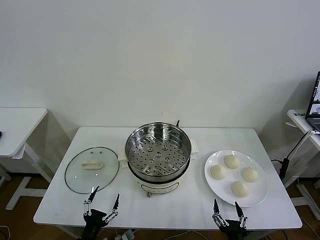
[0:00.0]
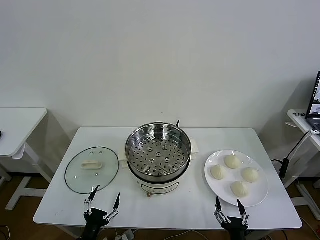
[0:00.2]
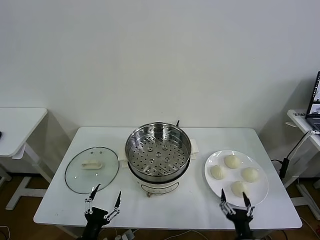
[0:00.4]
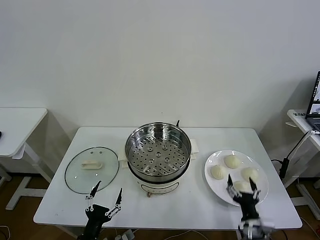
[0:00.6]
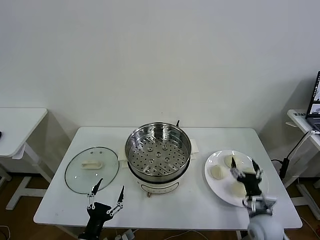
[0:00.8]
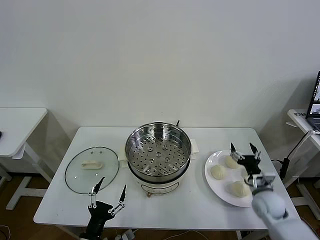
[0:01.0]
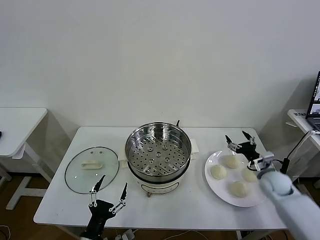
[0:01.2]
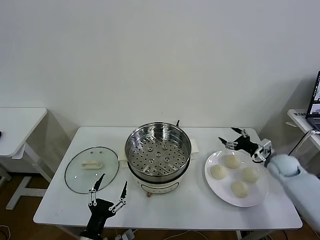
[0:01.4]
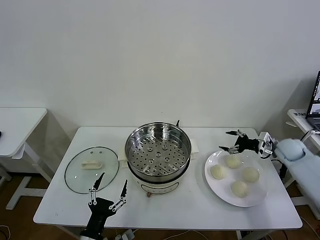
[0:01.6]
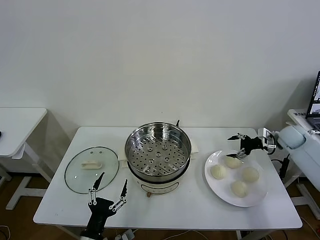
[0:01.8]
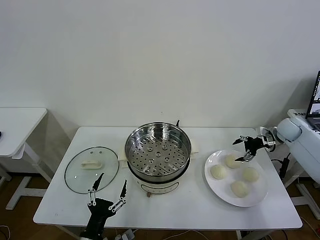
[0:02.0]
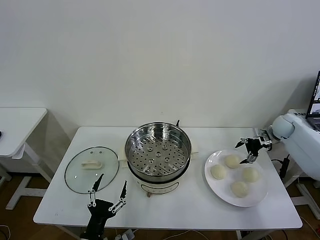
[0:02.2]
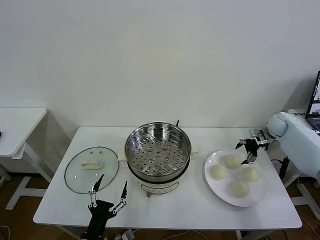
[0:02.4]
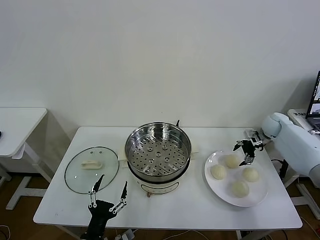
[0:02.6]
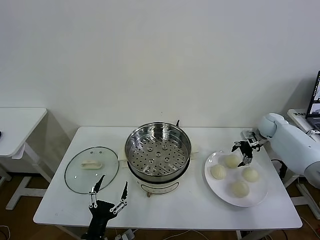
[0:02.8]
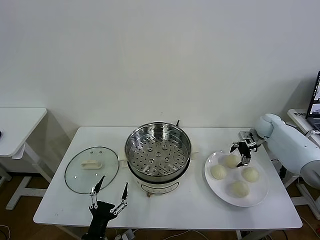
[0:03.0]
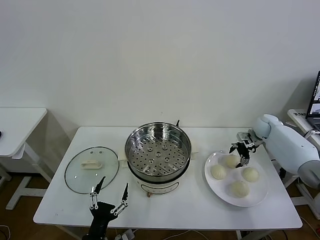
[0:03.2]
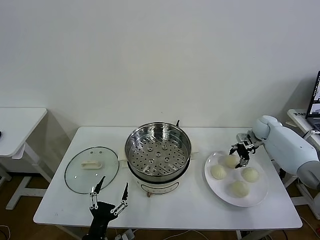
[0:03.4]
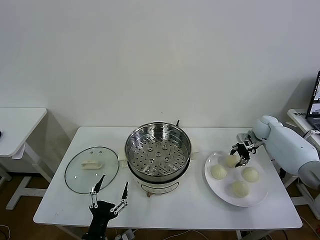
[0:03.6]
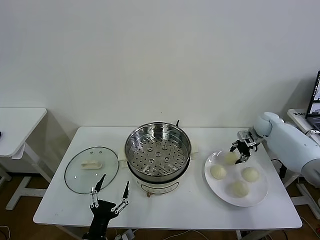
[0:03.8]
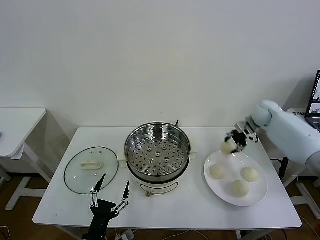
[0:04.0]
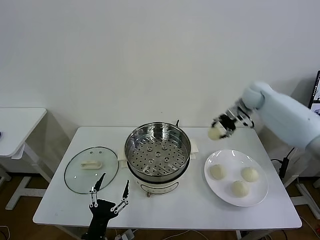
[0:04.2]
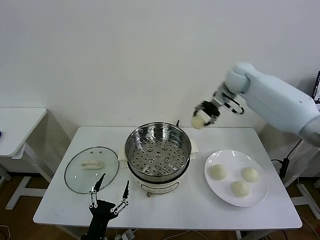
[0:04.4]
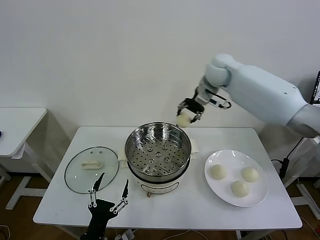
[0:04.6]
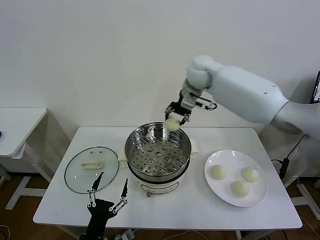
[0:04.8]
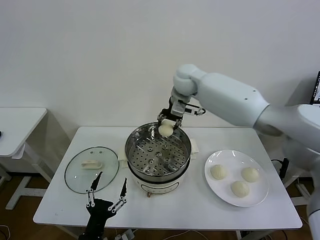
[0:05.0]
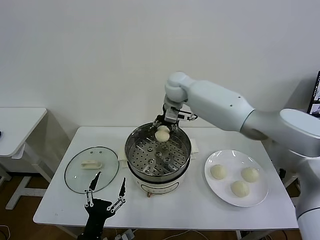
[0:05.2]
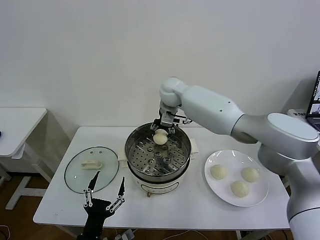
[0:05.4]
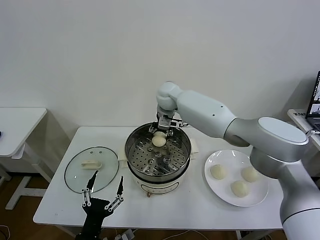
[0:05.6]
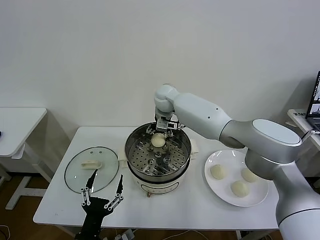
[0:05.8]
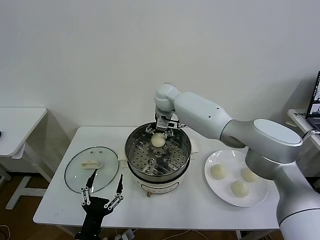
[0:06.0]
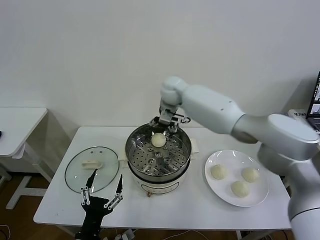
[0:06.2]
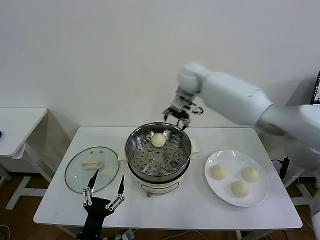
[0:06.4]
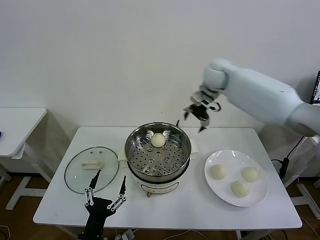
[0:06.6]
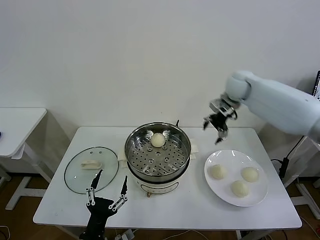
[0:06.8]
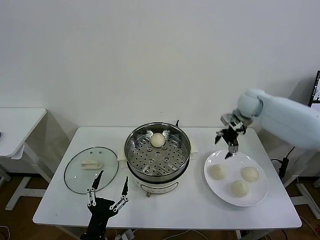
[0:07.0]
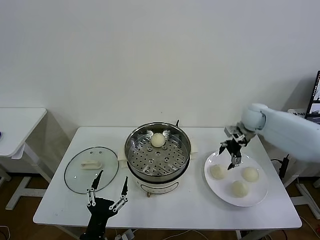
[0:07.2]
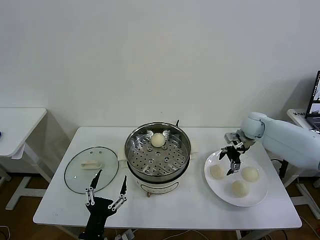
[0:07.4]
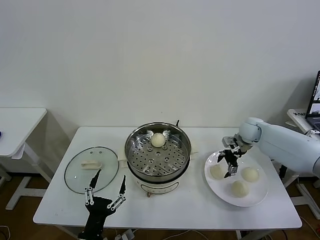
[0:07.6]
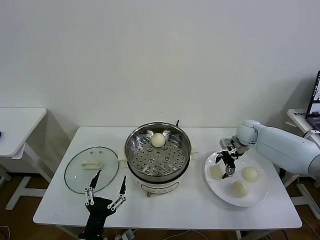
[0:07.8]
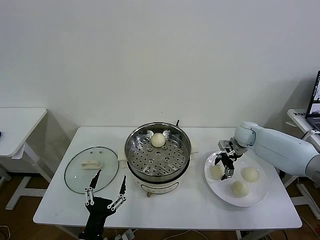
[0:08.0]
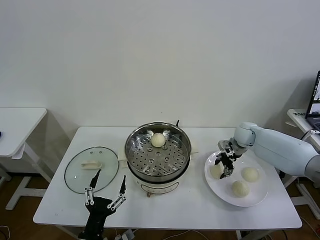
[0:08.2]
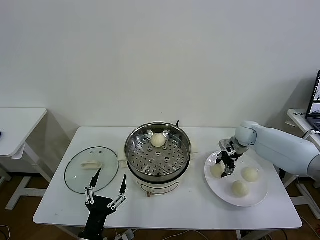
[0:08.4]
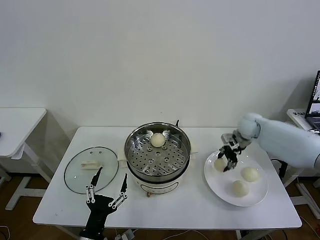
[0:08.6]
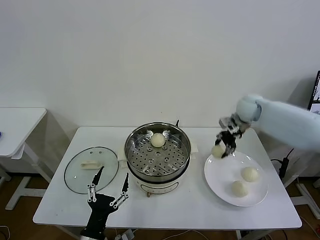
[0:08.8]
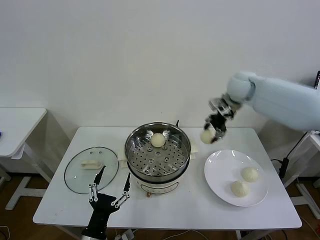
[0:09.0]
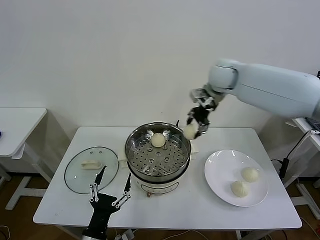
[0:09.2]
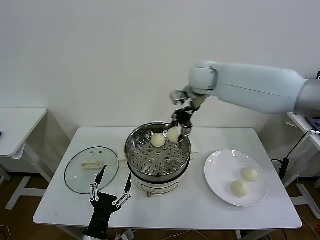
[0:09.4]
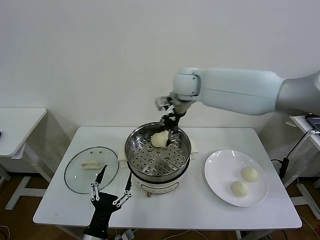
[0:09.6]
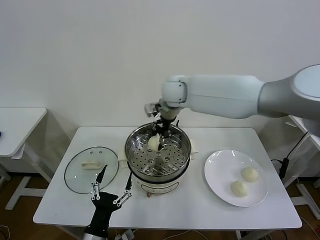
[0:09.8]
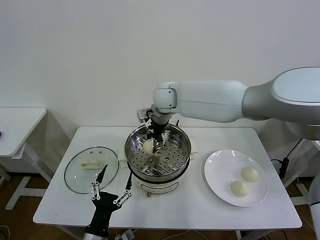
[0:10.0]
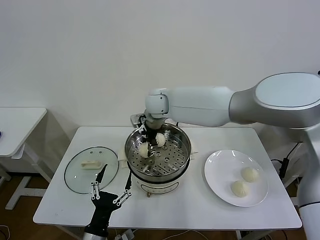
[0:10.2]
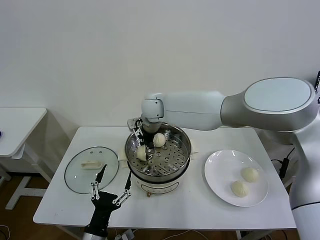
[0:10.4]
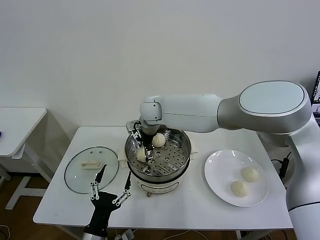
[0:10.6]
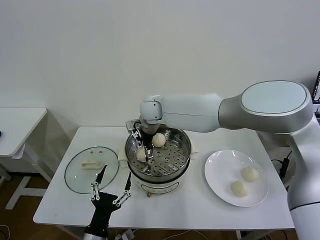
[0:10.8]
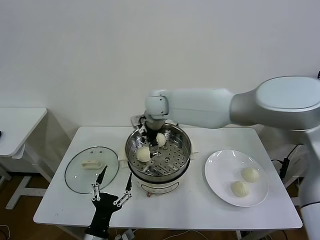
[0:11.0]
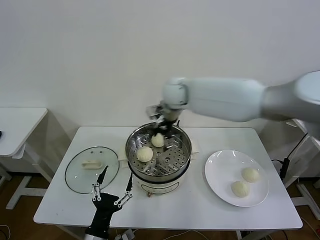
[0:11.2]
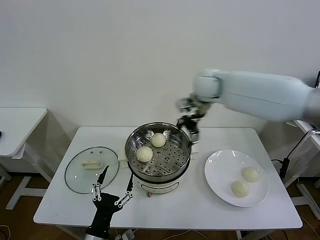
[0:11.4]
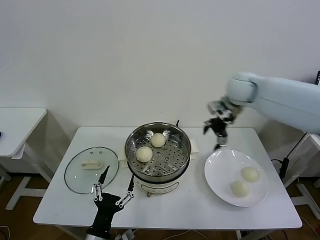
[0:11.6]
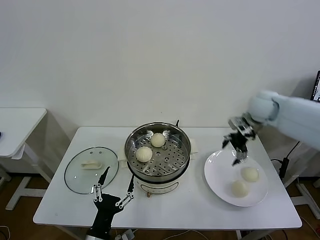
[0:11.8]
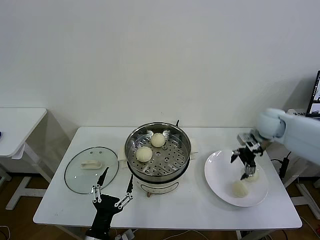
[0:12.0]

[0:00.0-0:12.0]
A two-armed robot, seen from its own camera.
Task of the whole recording: take steamed baozi put them in steamer then cover it.
Step, 0.0 to 3.6 s: Grasp the baozi in the plate with right gripper.
Step, 3.8 to 6.0 s: Place the baozi on the steamer with right gripper.
Step, 6.2 to 8.2 s: Grasp the baozi in the plate with right gripper.
Step, 8.4 to 10.6 s: Place the baozi on the steamer with right gripper.
1.6 to 3.0 s: The right gripper goes approximately 10 cm forward.
3.0 to 4.4 s: The right gripper shifts some 30 cm upward and to the left, and closes its fingers.
4.4 to 6.0 s: The right gripper shifts some 25 cm to the left, and opens.
6.0 to 7.6 s: The right gripper moves to the right, about 35 cm.
7.6 to 9.0 s: The right gripper travels upward and to the left by approximately 20 cm, and closes its fingers.
9.0 to 10.4 s: The right gripper travels to the left by roughly 30 cm.
10.4 to 12.0 s: The right gripper travels to the right by about 40 cm, and opens up.

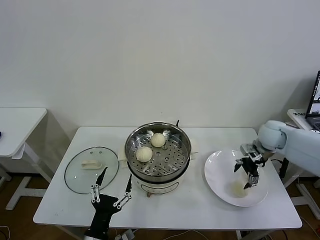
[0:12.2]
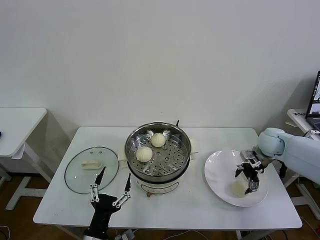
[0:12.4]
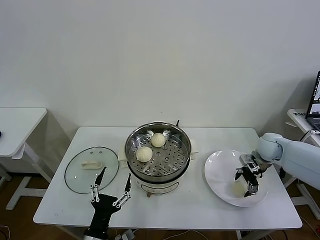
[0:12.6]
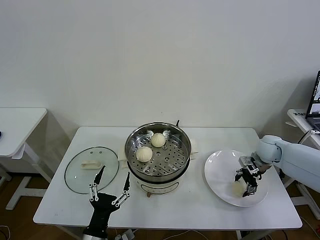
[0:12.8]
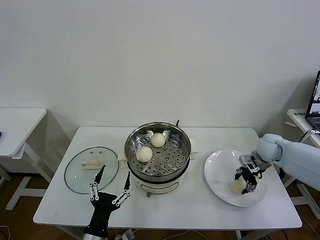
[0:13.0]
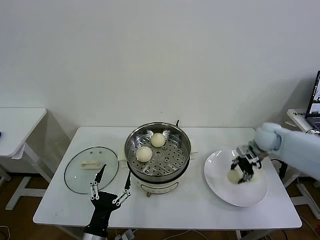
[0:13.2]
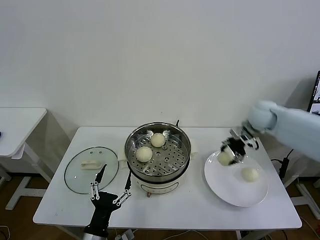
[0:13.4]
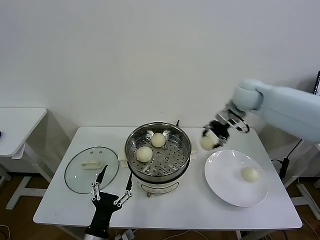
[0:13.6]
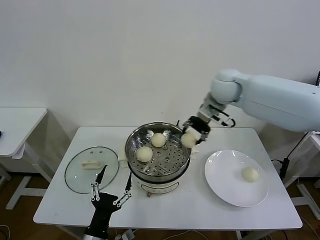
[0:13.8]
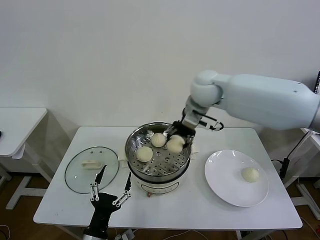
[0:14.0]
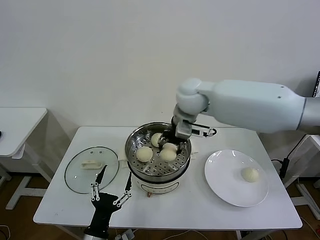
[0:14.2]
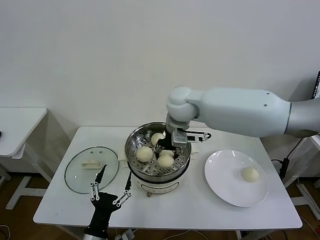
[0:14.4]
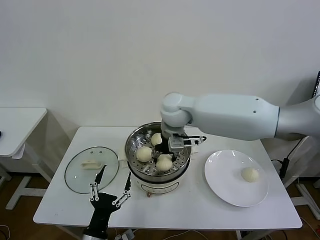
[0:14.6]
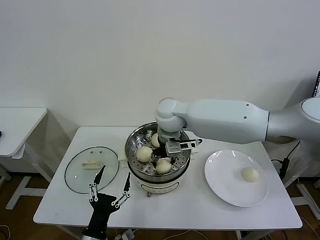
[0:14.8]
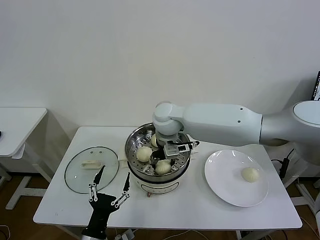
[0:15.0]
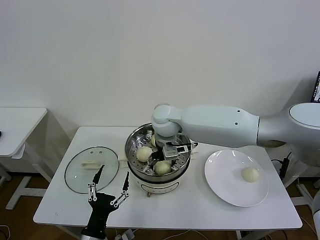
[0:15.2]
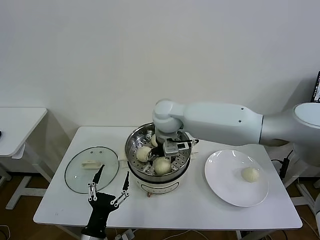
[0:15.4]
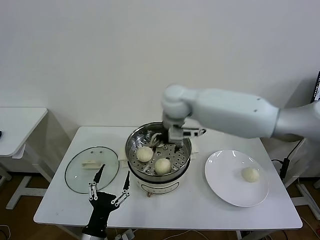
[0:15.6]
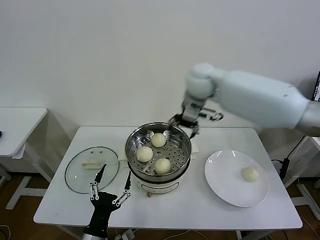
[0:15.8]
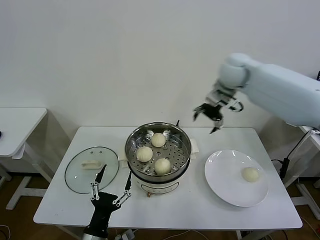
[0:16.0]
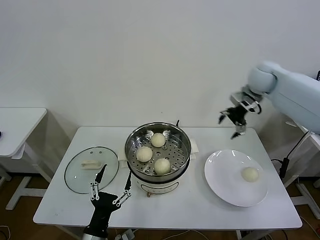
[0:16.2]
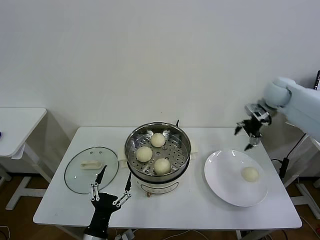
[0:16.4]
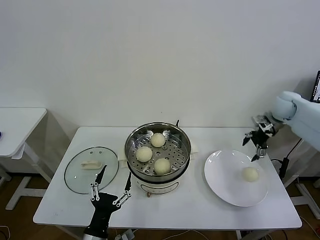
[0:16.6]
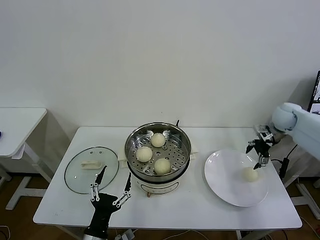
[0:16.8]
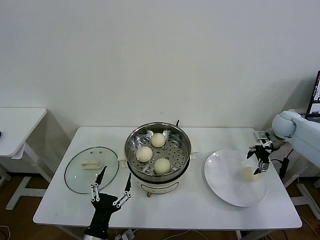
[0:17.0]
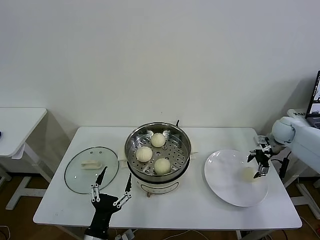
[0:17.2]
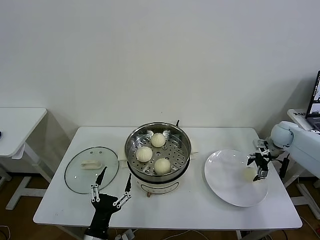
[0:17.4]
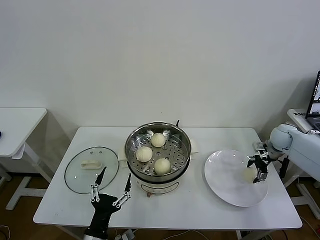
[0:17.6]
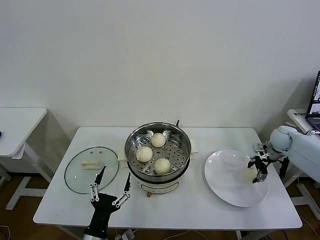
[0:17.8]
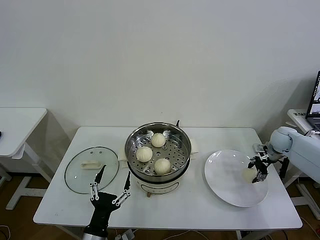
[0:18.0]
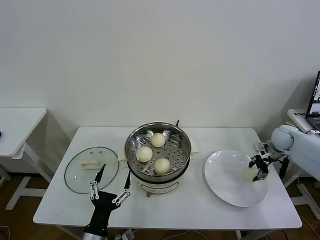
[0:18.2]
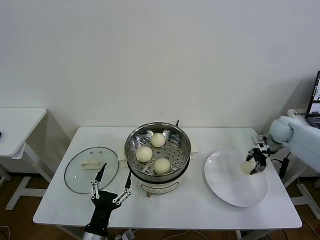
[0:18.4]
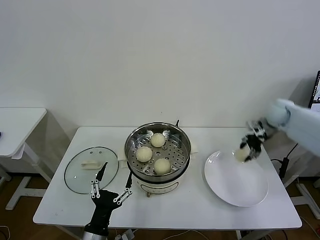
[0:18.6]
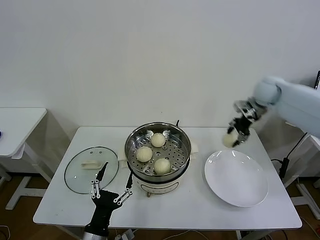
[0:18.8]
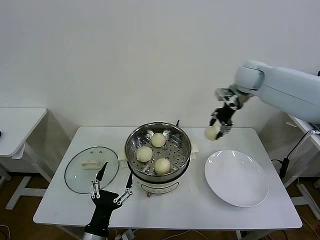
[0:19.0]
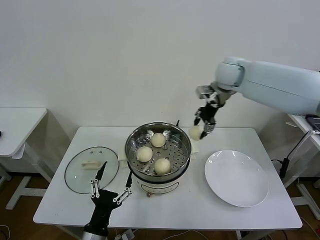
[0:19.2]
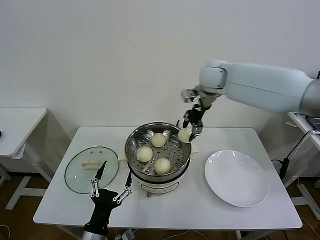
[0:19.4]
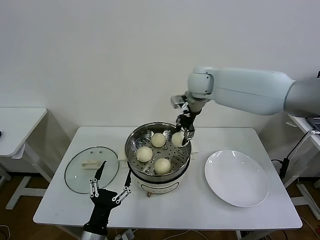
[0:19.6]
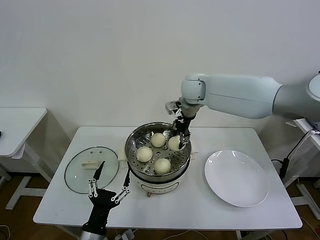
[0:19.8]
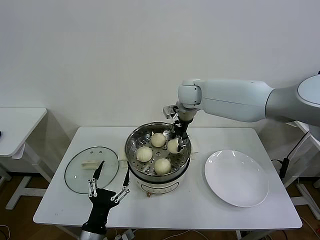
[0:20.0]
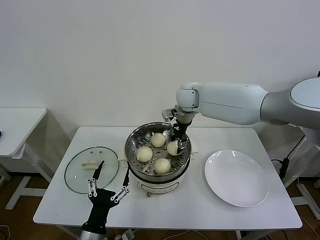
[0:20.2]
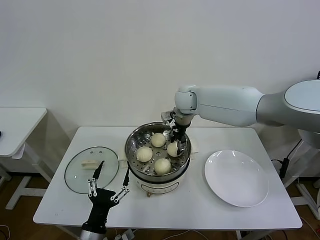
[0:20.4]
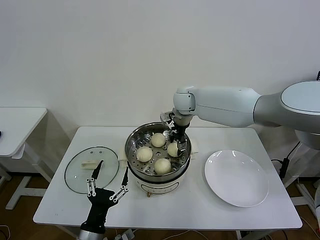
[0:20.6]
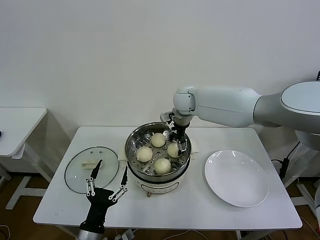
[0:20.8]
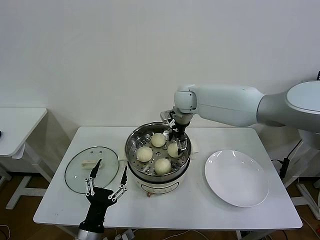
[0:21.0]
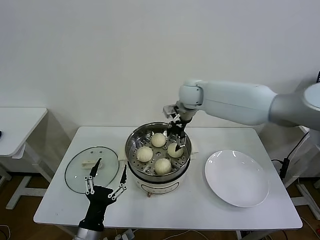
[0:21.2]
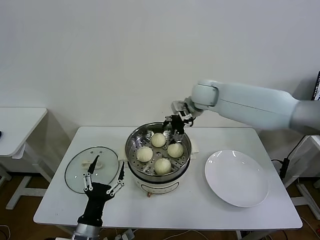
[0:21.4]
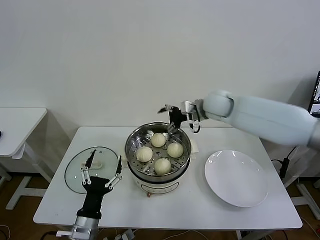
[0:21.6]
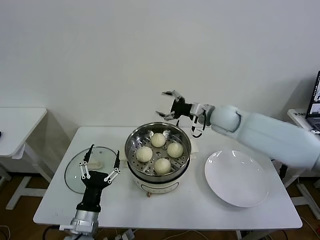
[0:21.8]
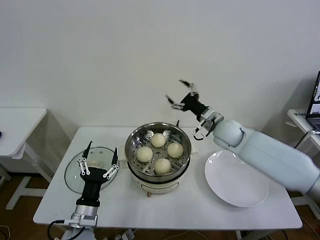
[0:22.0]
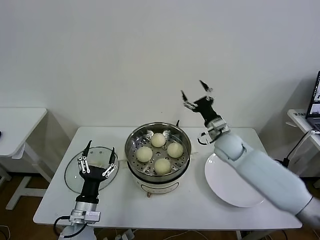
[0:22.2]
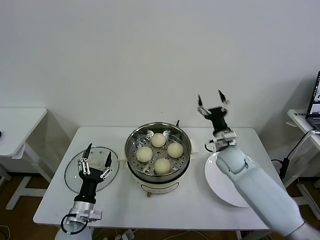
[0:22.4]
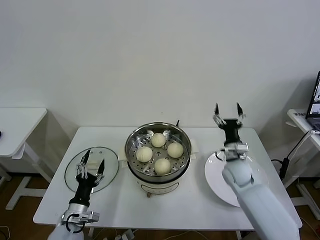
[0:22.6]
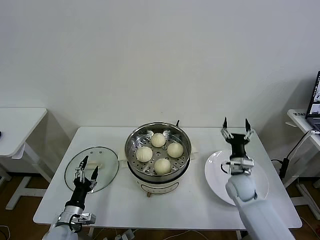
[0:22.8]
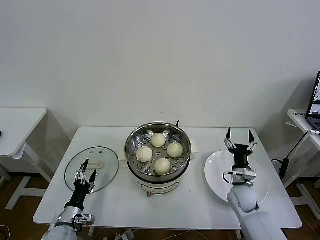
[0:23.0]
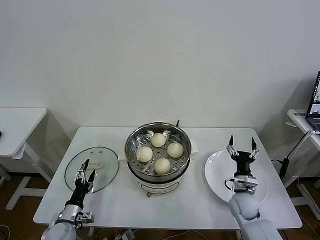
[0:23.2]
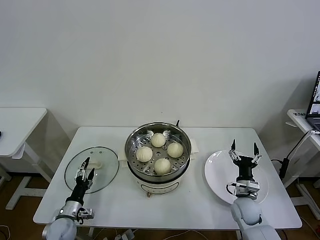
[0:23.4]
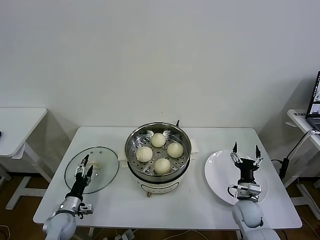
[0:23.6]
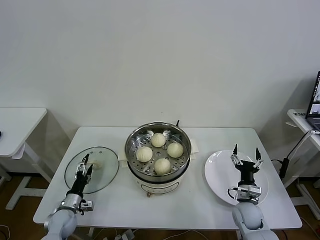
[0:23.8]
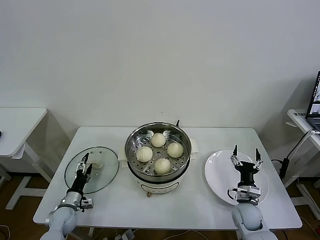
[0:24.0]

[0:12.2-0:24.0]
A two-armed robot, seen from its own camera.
Task of the whole recording: take steamed baozi put them in steamer then cover it.
Step, 13.2 to 15.2 s: Place the baozi on the steamer with right gripper.
Step, 15.4 to 18.2 s: Grasp the baozi in the plate with right gripper.
Step, 18.4 to 20.6 s: Place the baozi on the steamer with right gripper.
12.2 to 13.6 s: The right gripper is displaced upward, to the left and forward by roughly 20 cm, and closes.
13.6 to 15.2 s: The right gripper moves to the left, approximately 25 cm, and opens.
15.2 to 16.6 s: The right gripper travels to the right by some 40 cm.
16.6 to 18.2 s: The right gripper moves downward, roughly 15 cm, and closes.
18.2 to 19.6 s: The right gripper shifts approximately 40 cm to the left and upward.
19.6 to 21.0 s: The right gripper shifts roughly 5 cm downward, and opens.
21.0 to 22.6 s: The left gripper heads forward, to the left and downward, covering about 15 cm; the right gripper moves downward, to the right and backward, approximately 30 cm.
22.6 to 24.0 s: The right gripper heads backward and downward, covering about 15 cm, while the left gripper moves downward, to the left and forward, some 15 cm.
